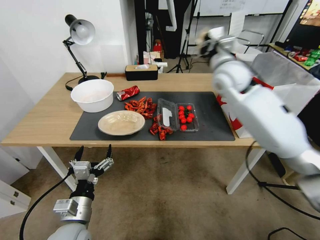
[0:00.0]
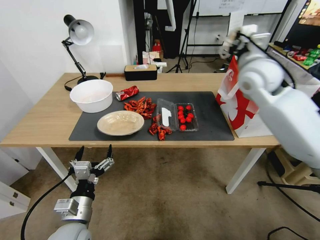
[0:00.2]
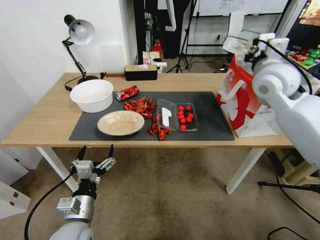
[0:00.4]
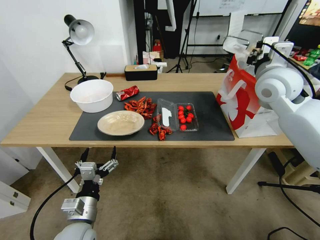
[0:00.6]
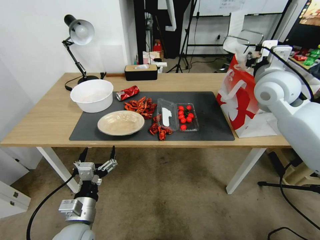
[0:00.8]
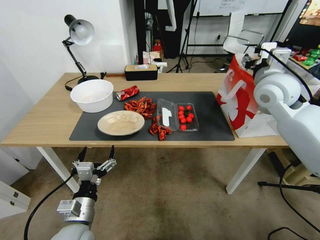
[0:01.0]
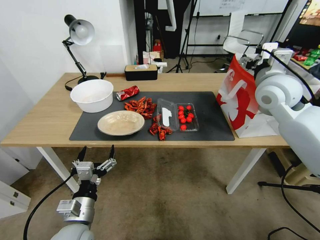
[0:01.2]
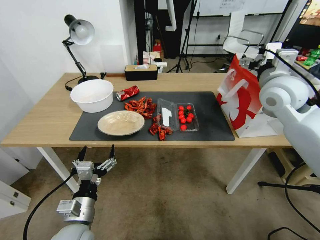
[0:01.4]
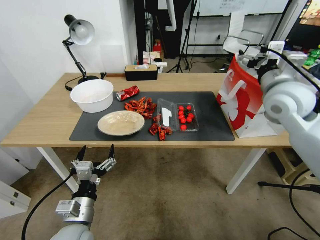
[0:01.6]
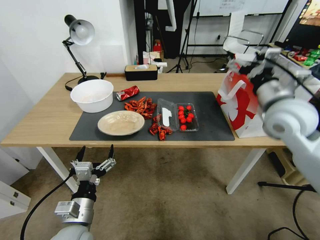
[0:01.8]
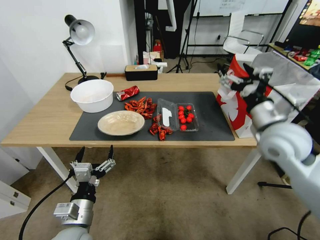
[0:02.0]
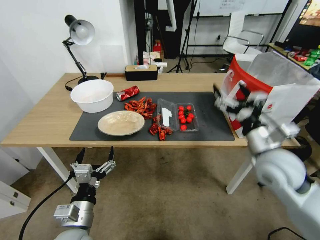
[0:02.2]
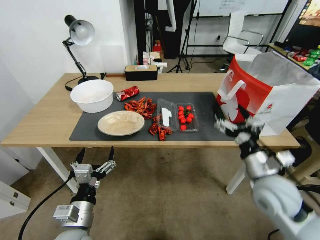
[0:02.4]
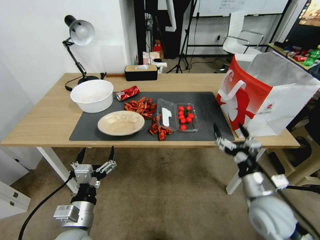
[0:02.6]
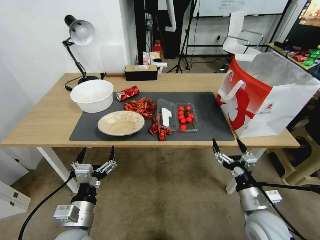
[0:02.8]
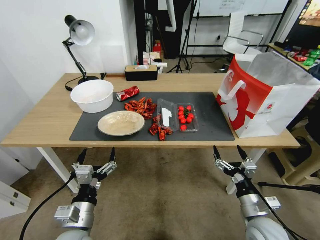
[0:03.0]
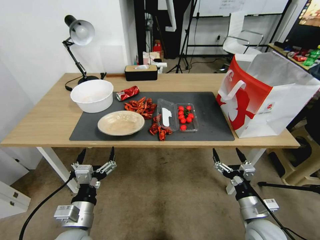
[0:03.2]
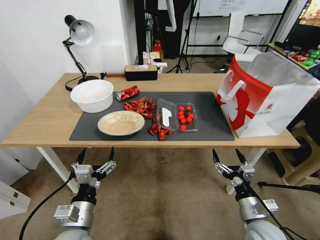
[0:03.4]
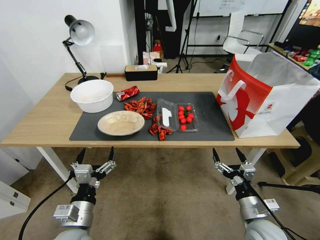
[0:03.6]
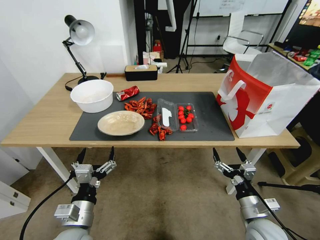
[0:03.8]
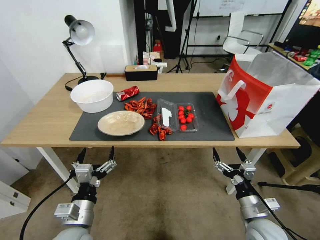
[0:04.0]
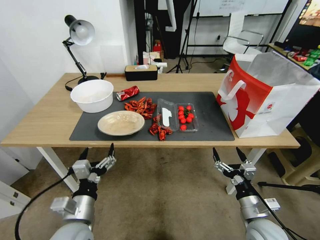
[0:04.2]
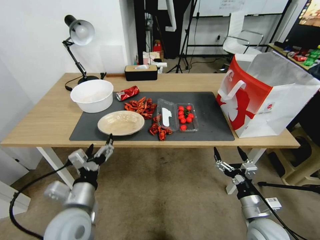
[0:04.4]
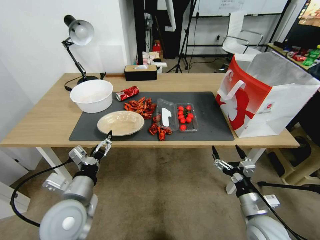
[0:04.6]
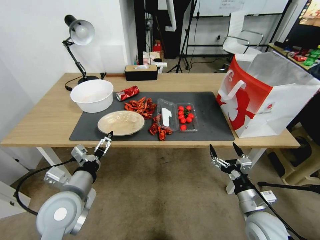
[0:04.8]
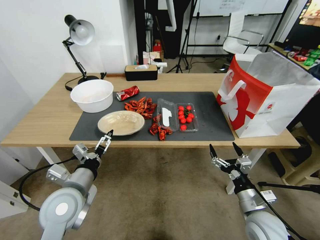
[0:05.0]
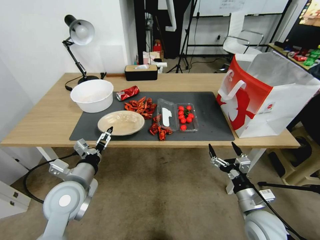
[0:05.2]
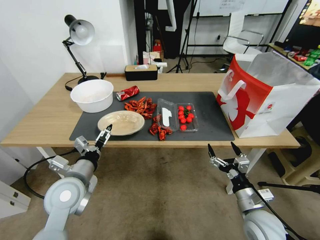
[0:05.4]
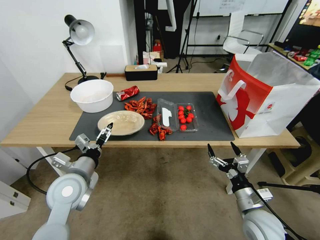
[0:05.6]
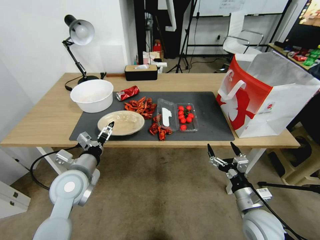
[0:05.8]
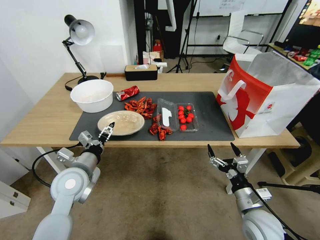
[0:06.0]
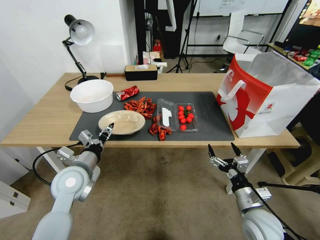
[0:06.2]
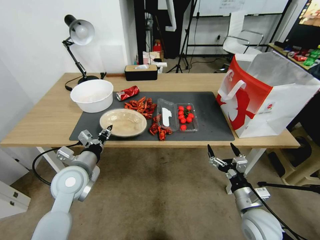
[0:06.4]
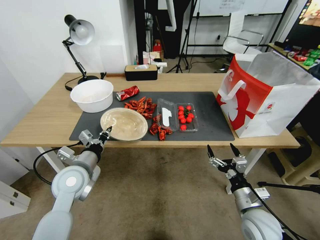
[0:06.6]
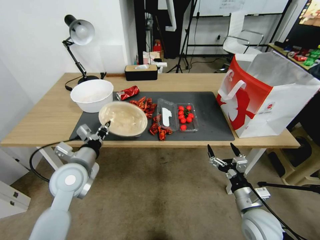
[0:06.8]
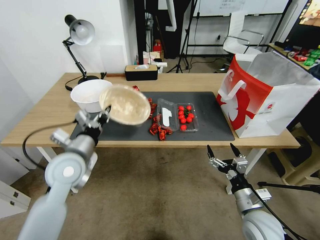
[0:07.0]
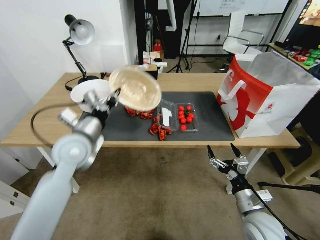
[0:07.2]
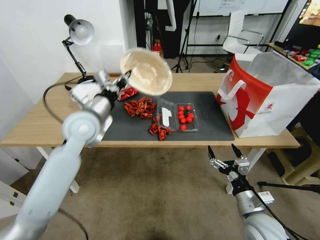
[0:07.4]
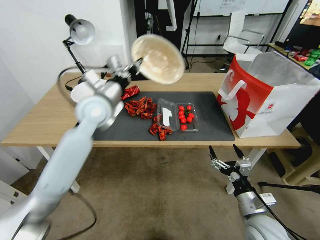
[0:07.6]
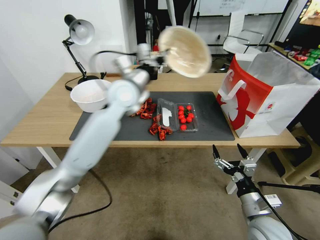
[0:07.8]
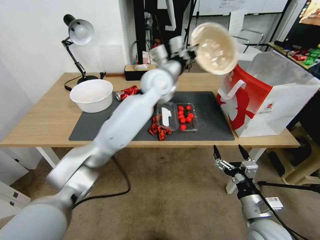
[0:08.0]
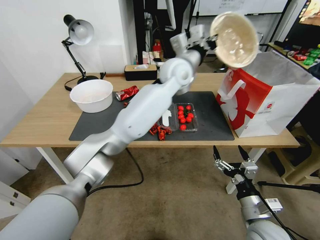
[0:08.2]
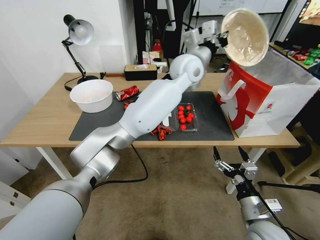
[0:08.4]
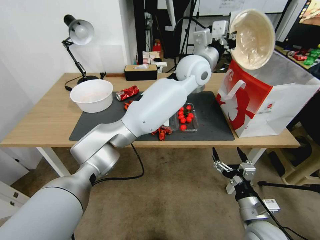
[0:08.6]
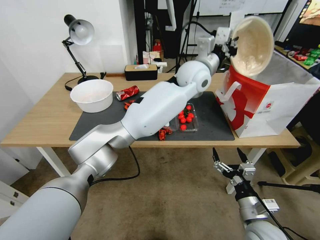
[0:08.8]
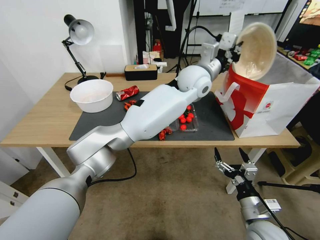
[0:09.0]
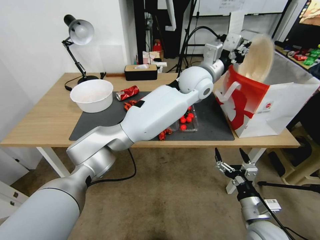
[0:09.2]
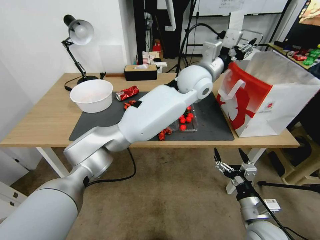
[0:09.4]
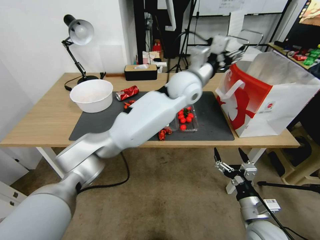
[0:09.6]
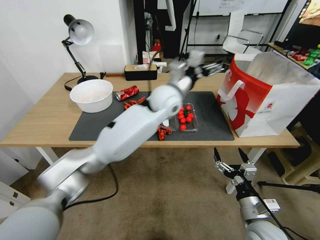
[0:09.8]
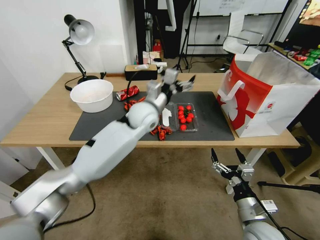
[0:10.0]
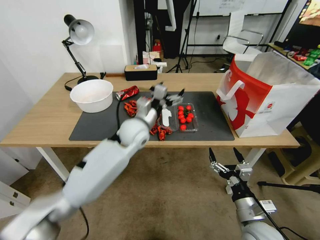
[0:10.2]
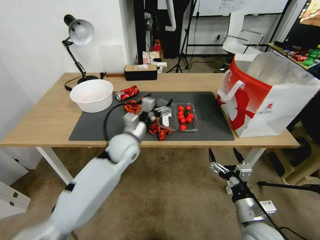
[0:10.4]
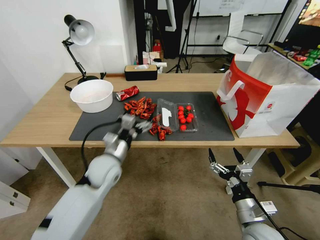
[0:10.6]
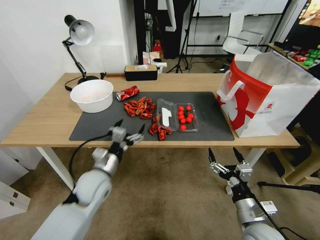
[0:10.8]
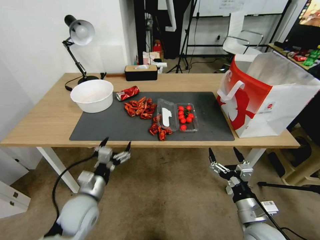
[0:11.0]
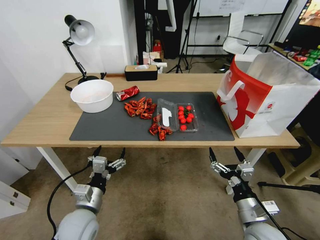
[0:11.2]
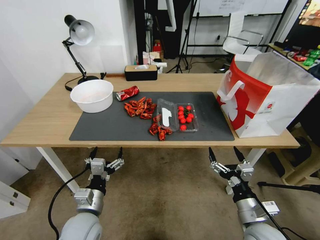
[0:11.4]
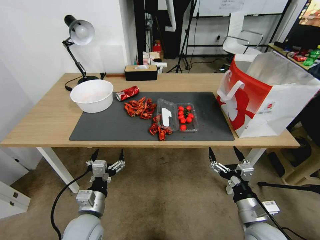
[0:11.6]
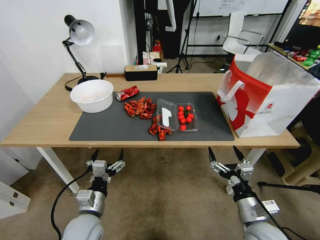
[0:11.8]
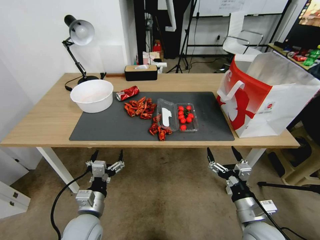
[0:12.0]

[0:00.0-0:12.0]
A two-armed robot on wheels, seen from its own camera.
0:00.0 to 0:01.6: The right gripper heads to the right and backward, covering some 15 cm, and opens up.
0:01.6 to 0:03.0: The right gripper travels downward and backward by about 40 cm.
0:04.4 to 0:06.0: The left gripper goes about 10 cm forward.
0:06.0 to 0:07.6: The left gripper heads upward, forward and to the right, covering about 25 cm, and closes.
0:07.6 to 0:09.0: The left gripper travels to the right by some 30 cm.
0:09.0 to 0:10.4: The left gripper shifts some 30 cm to the left, downward and backward, and opens its fingers.
0:10.4 to 0:12.0: The left gripper is displaced backward, downward and to the left by approximately 25 cm.

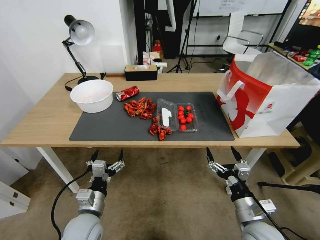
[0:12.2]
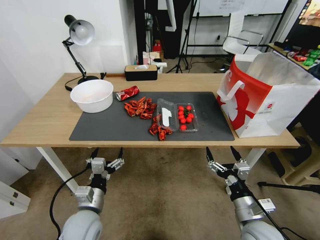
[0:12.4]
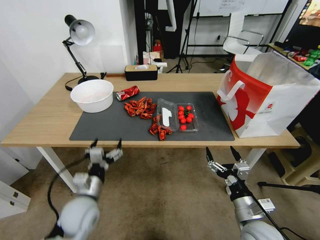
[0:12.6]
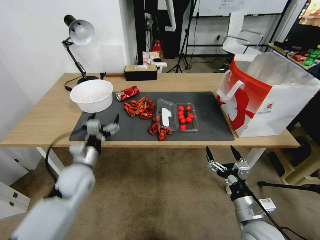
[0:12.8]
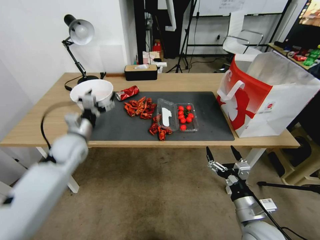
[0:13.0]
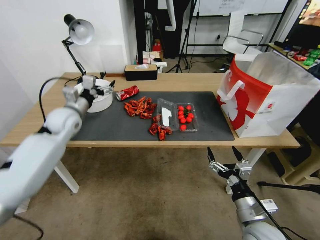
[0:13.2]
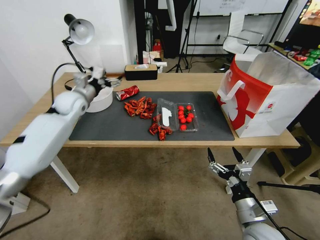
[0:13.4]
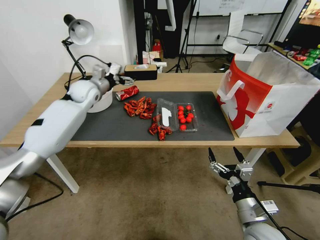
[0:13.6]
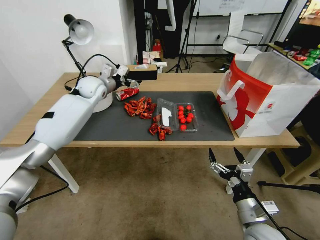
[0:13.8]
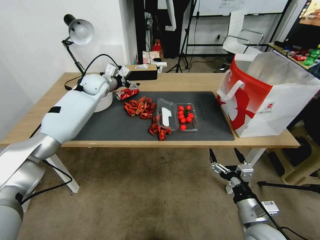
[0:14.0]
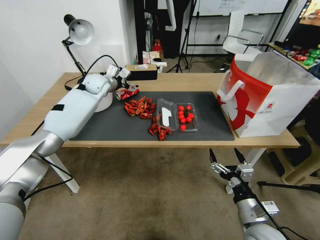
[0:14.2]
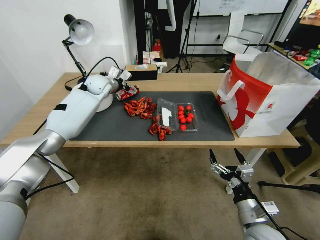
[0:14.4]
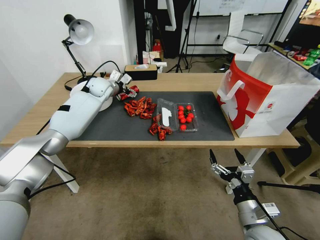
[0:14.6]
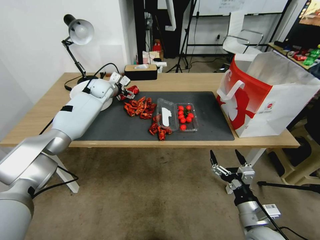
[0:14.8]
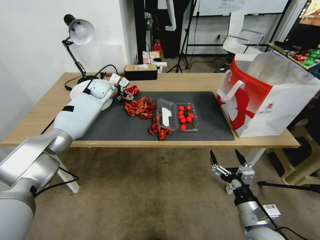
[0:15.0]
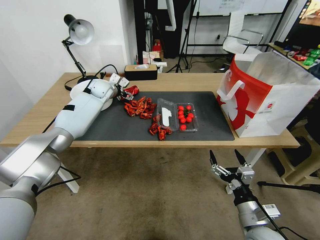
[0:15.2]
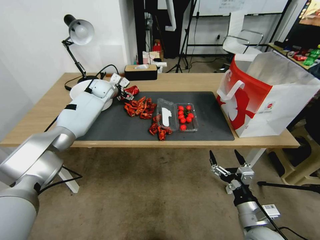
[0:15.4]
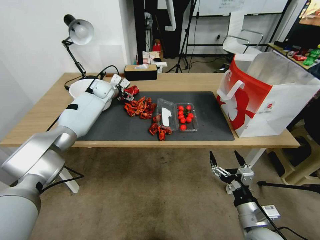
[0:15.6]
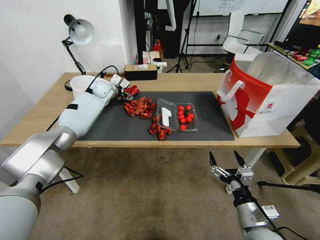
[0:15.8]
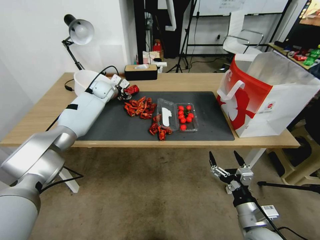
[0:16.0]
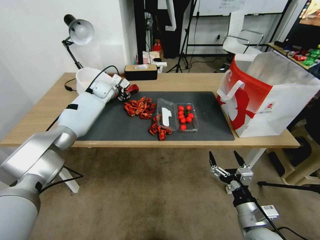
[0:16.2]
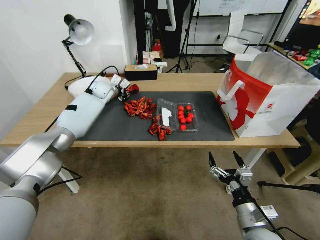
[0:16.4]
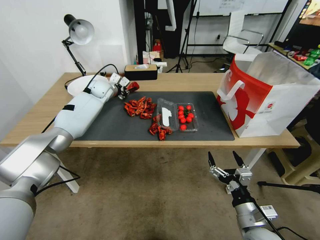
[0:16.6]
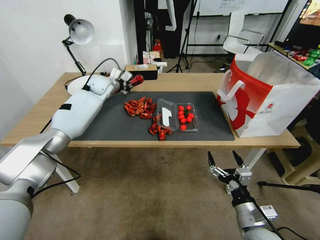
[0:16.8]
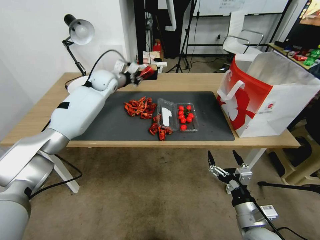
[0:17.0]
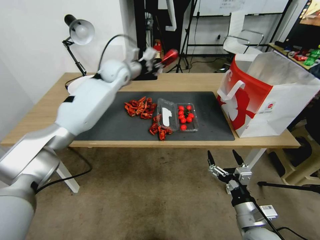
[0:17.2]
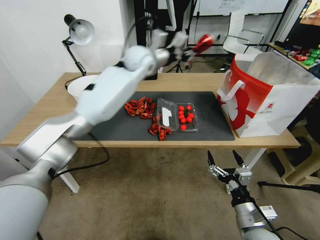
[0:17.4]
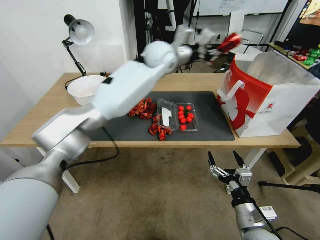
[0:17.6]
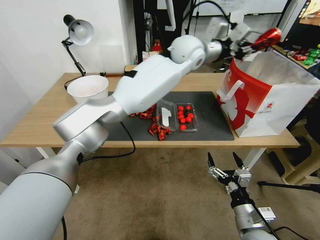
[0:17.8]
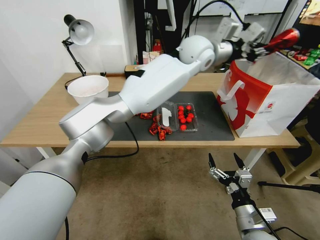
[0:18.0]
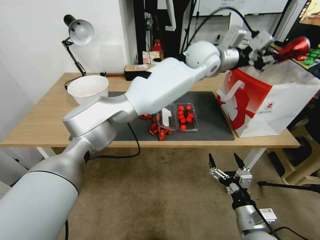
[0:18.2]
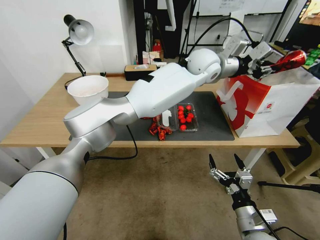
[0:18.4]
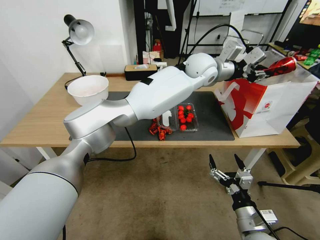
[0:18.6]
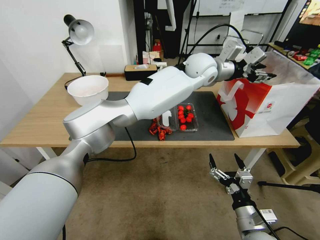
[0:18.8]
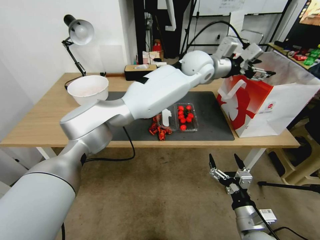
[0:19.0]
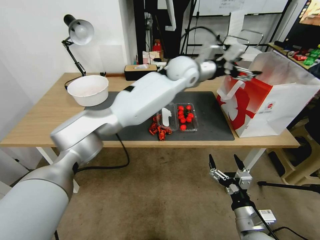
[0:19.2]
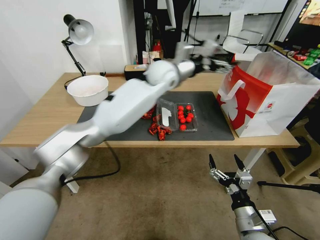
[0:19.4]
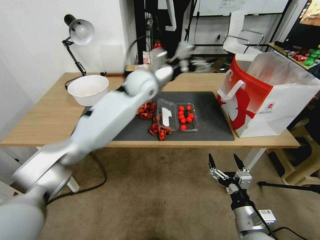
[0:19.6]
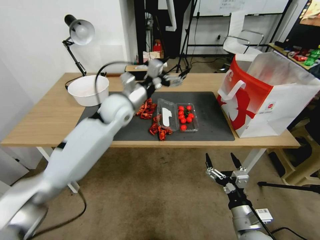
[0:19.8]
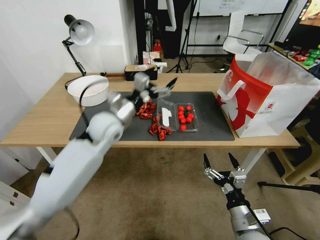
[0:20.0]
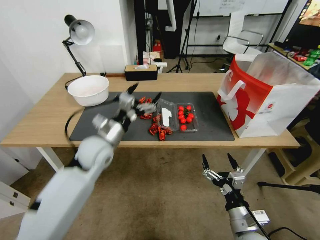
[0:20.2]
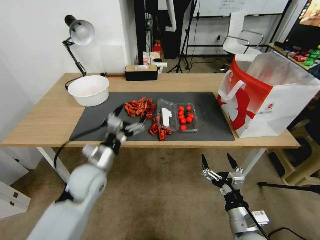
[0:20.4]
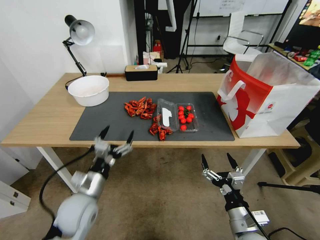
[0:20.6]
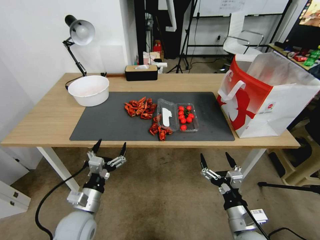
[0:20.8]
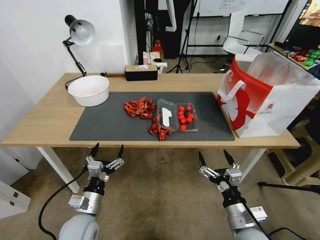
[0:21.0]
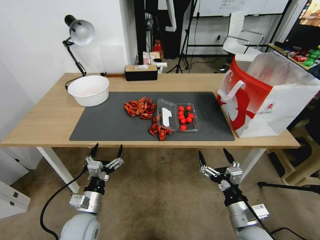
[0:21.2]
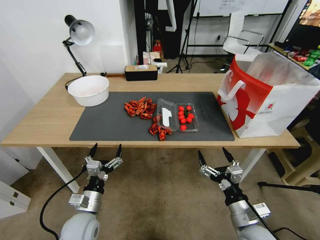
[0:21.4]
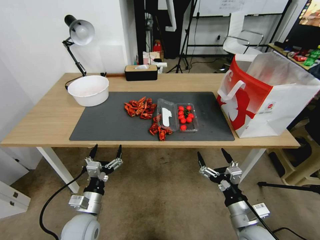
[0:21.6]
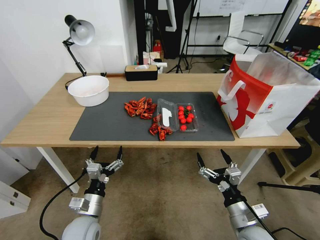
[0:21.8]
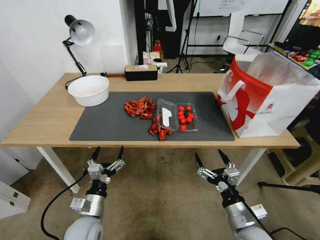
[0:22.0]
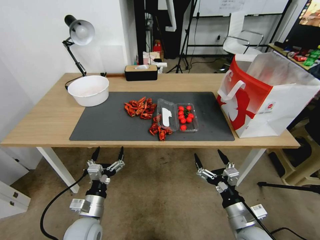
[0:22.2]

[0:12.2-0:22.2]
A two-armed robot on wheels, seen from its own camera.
0:12.2 to 0:13.6: The left gripper shifts roughly 40 cm forward and upward.
0:13.6 to 0:15.0: The left gripper moves forward, about 5 cm.
0:15.0 to 0:16.4: The left gripper closes its fingers.
0:16.4 to 0:18.0: The left gripper goes roughly 40 cm to the right and upward.
0:18.0 to 0:19.4: The left gripper shifts roughly 10 cm to the left and downward, and opens up.
0:19.4 to 0:20.8: The left gripper is displaced backward, downward and to the left by roughly 50 cm.
0:20.8 to 0:22.2: There are only small adjustments of the grippers.
